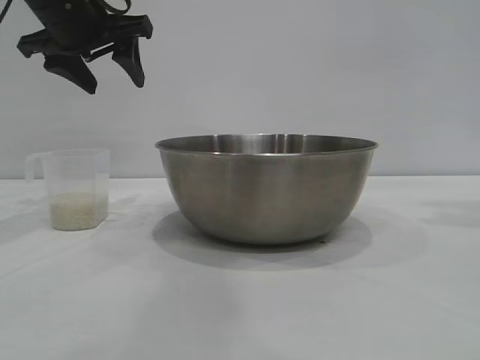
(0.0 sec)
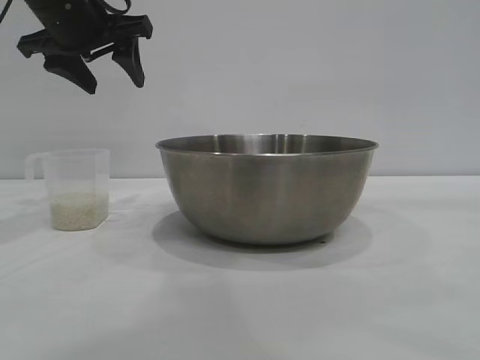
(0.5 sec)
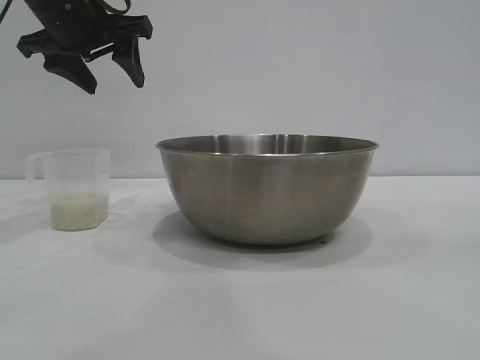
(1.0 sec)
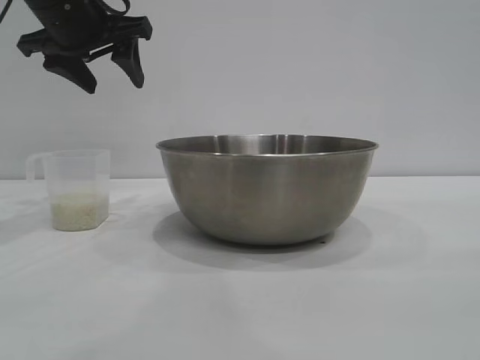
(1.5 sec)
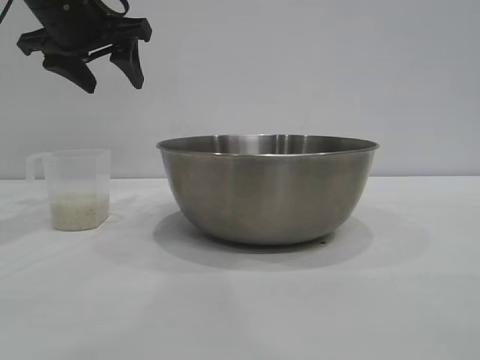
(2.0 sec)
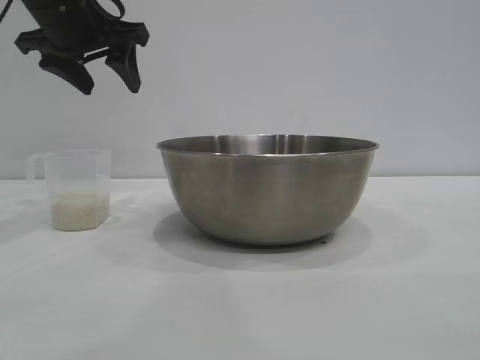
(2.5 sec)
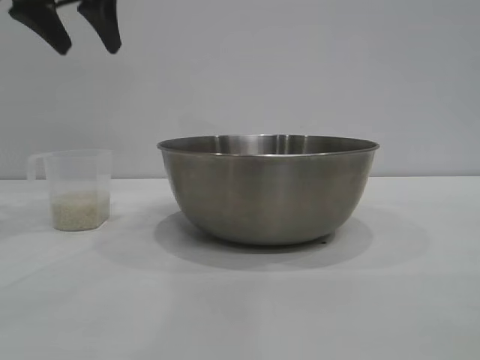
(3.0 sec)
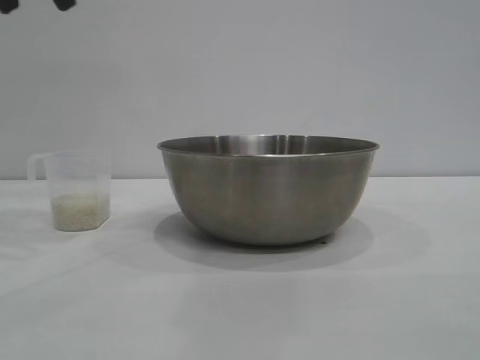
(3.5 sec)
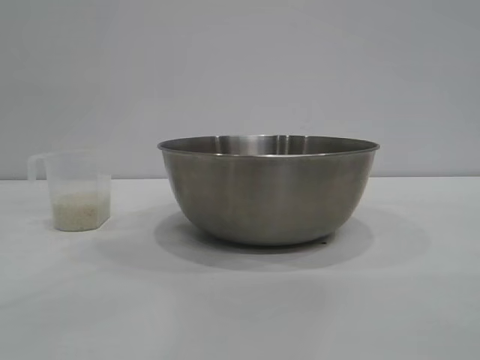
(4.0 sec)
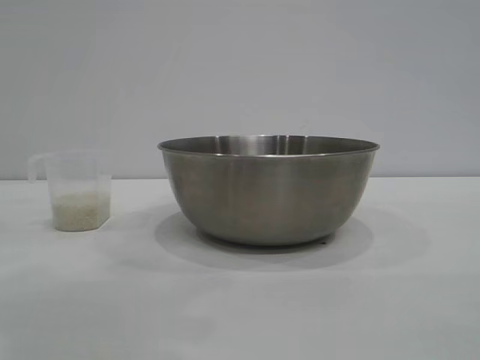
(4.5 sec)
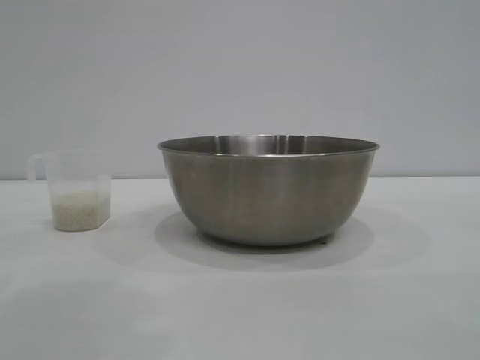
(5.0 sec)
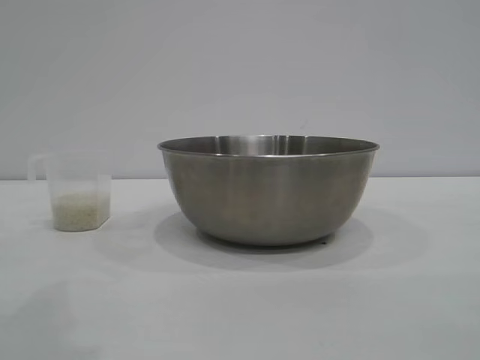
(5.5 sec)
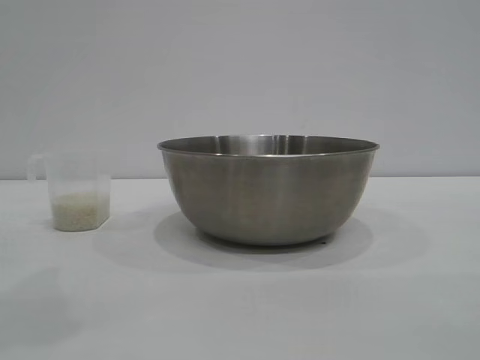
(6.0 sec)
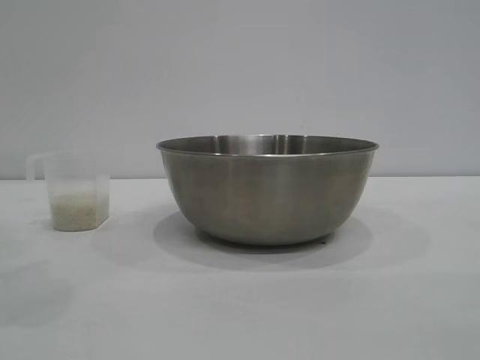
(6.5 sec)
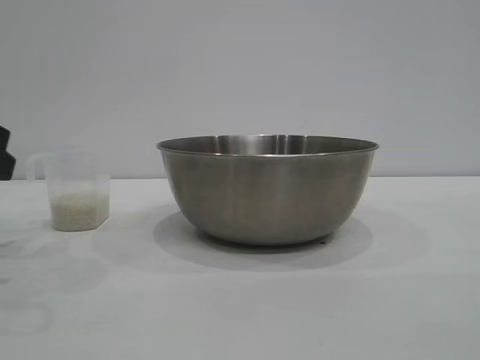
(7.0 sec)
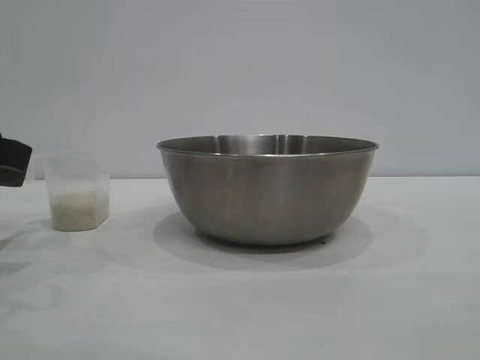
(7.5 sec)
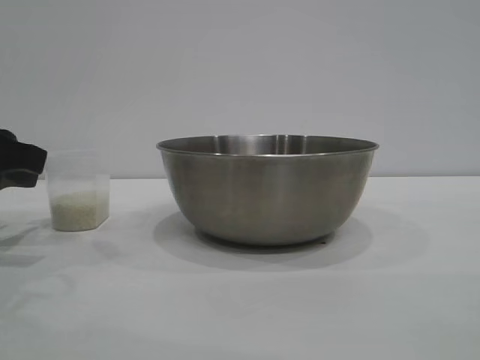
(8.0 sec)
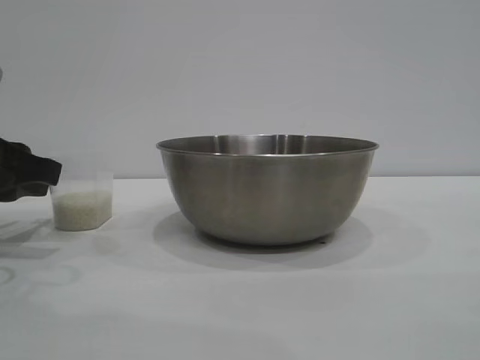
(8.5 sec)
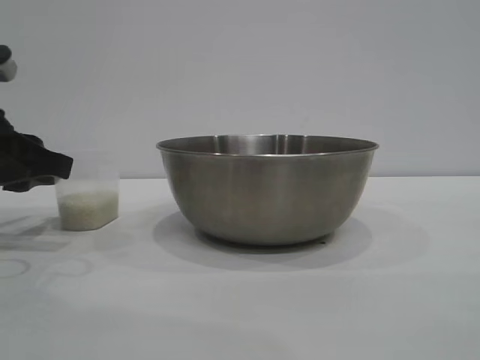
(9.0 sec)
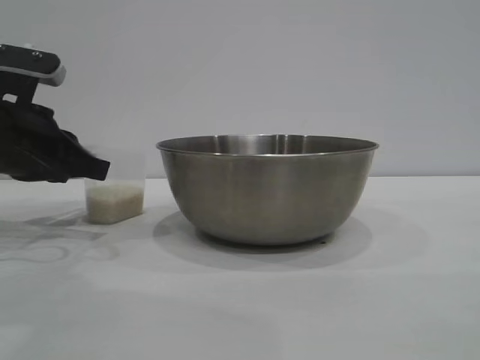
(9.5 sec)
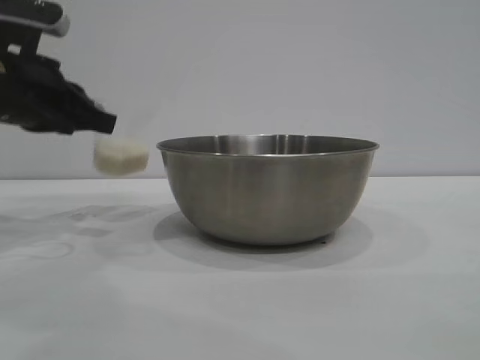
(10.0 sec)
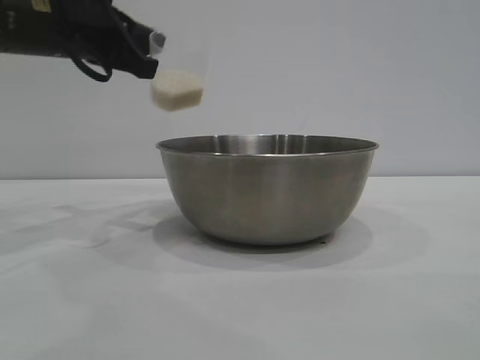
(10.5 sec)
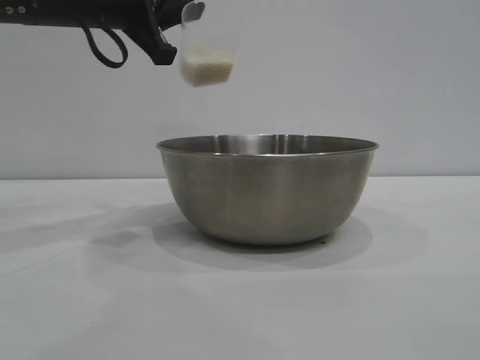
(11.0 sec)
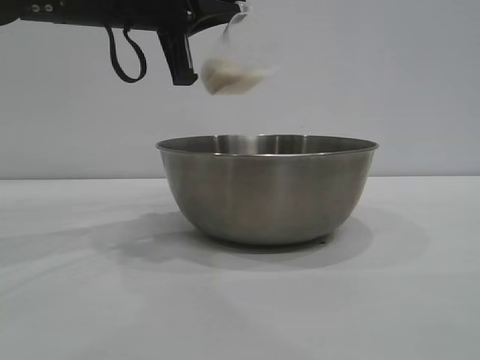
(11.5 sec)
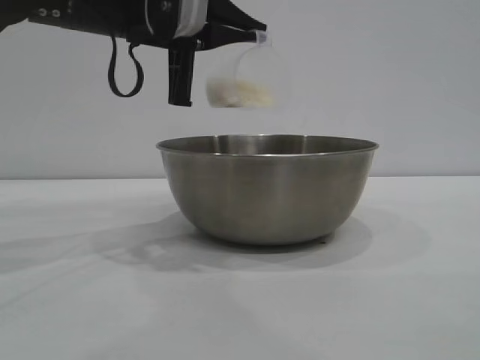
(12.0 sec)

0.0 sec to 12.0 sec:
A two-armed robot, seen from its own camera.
Task of the whole recording: the right gripper grasp the rice container and place it in the center of the table, the left gripper grasp the rice scoop and pour the rice into the rice container.
Step, 0.0 sec to 9.5 sec: Pick up the cup with rice in it with the left gripper.

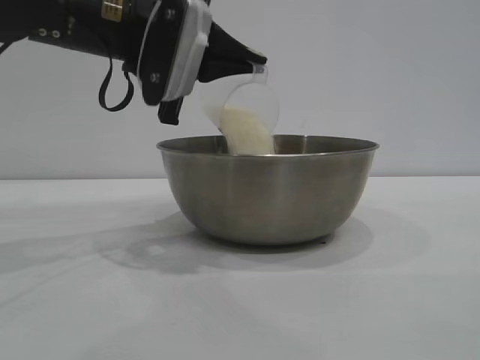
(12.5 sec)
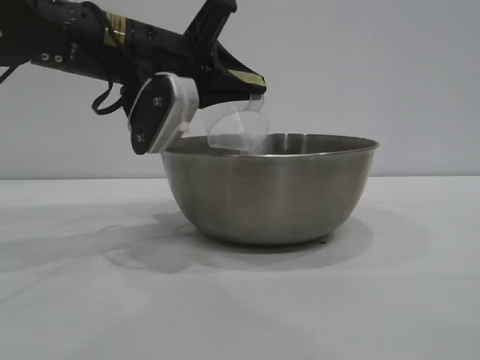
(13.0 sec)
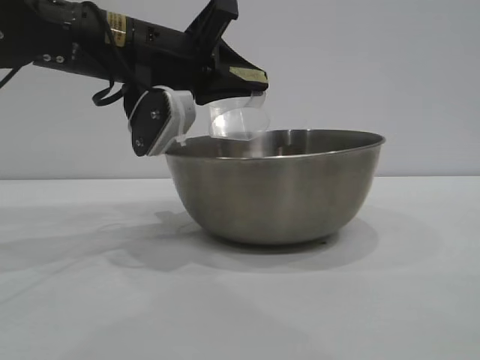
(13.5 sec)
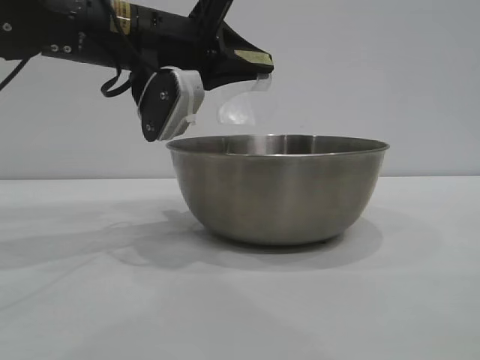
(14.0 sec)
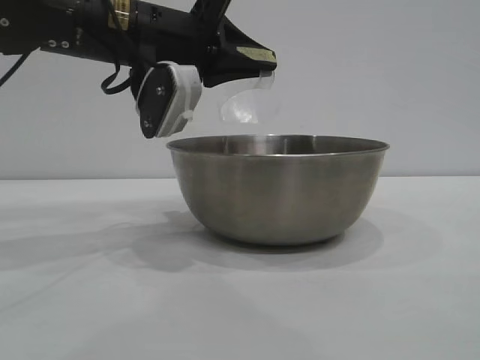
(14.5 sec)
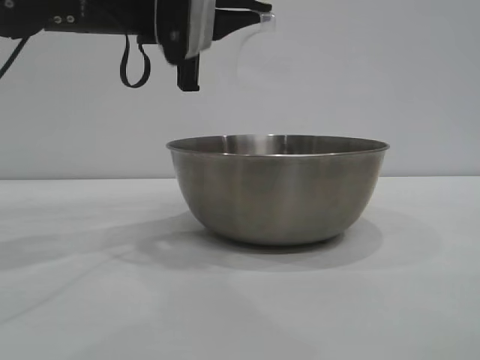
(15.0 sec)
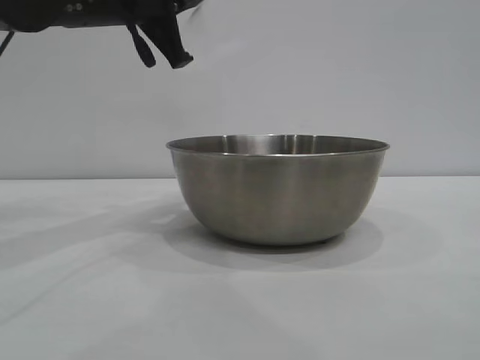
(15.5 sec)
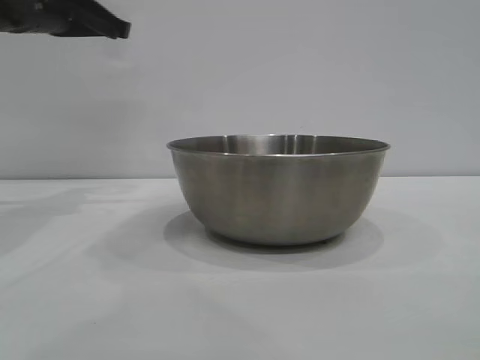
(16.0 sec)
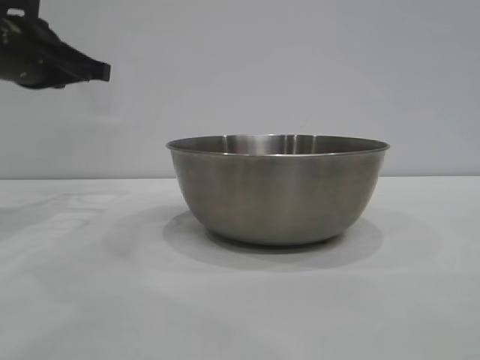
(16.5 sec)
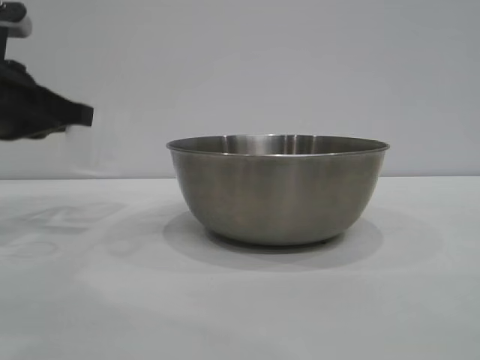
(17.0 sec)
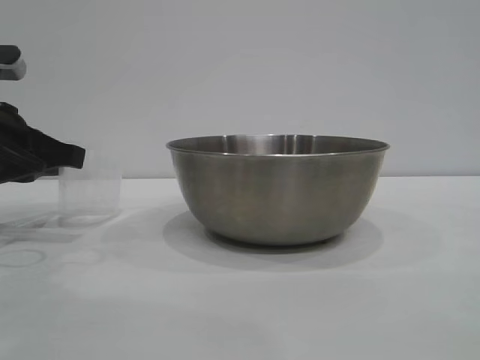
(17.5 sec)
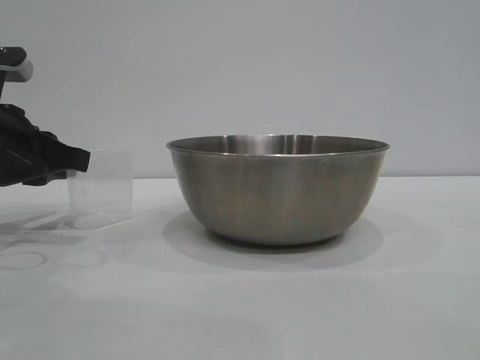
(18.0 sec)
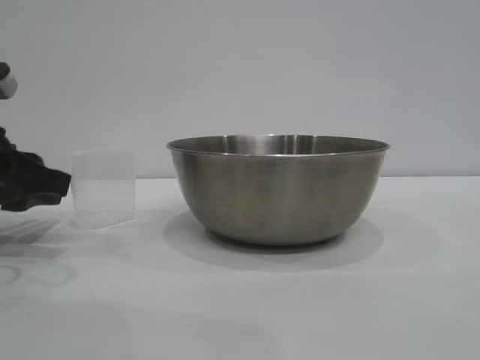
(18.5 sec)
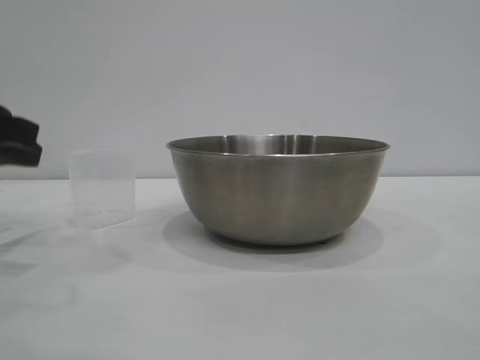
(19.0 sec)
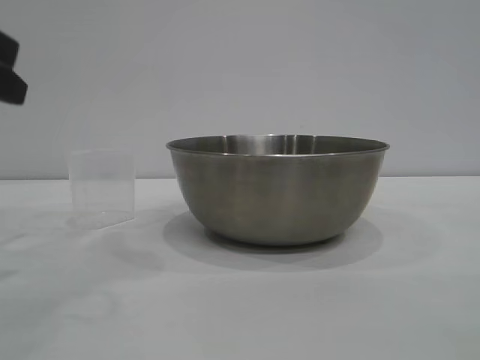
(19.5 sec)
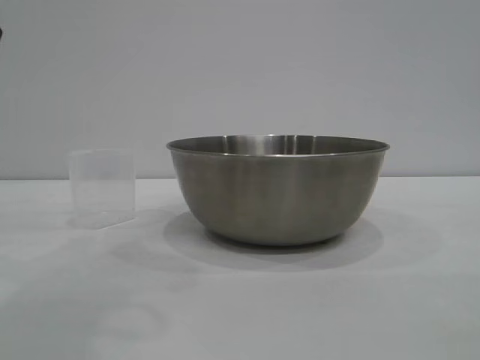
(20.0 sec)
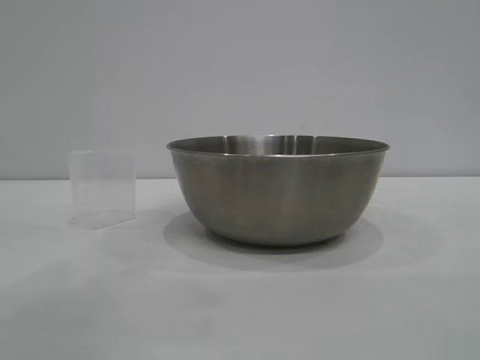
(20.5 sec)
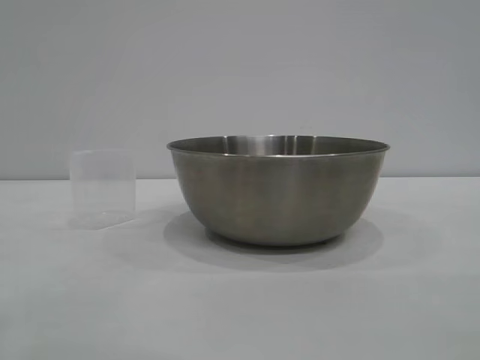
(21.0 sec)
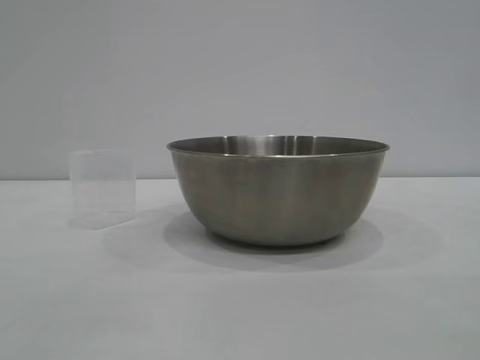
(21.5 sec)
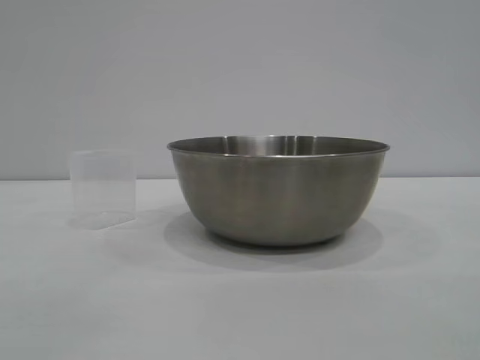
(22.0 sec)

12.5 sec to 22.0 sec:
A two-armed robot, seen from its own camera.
Task of the whole recording: the right gripper grasp the rice container and place it in the center of the table, the left gripper grasp the rice scoop and pour the rice into the rice container.
Step, 14.0 sec to 18.5 sec: Place the cup on the table with the left gripper.
